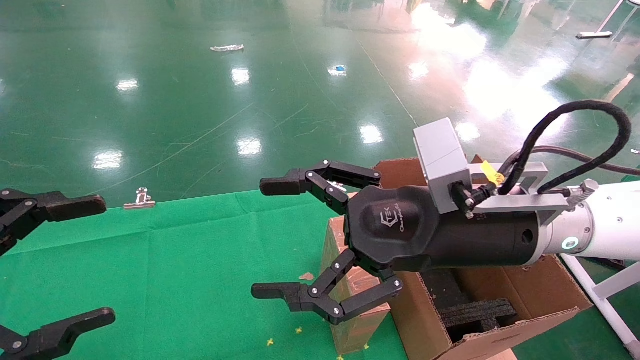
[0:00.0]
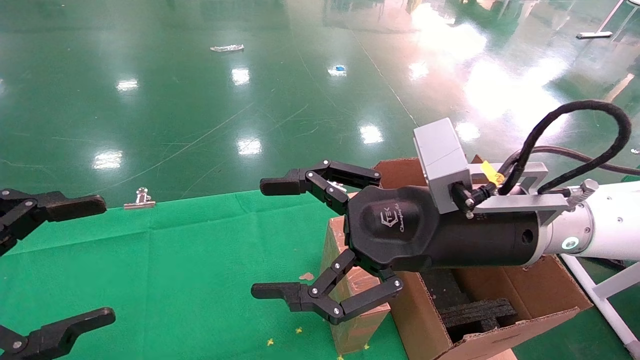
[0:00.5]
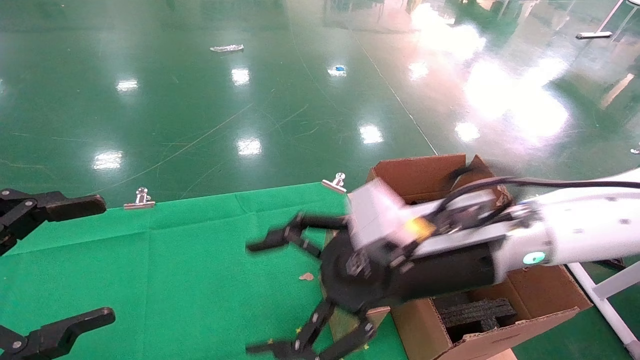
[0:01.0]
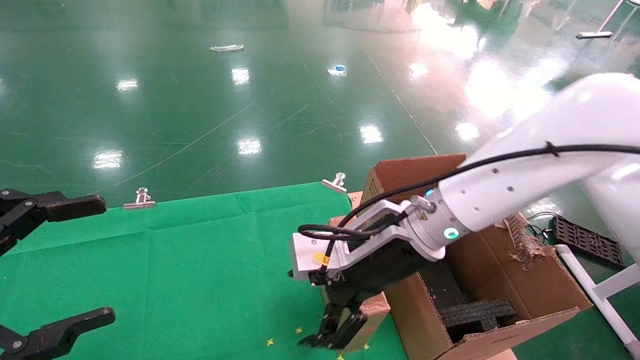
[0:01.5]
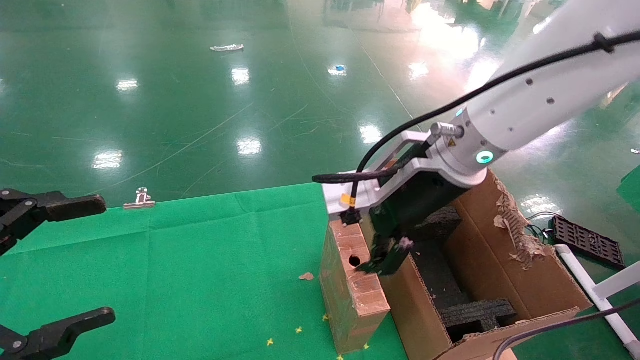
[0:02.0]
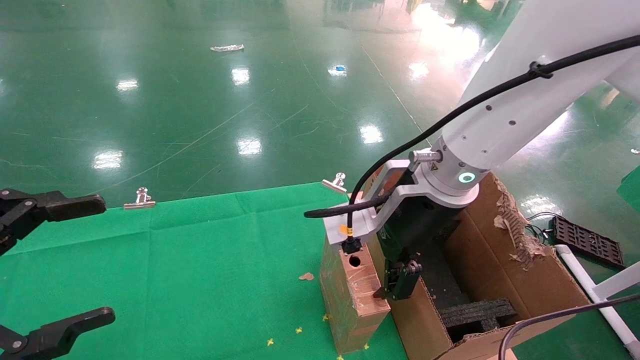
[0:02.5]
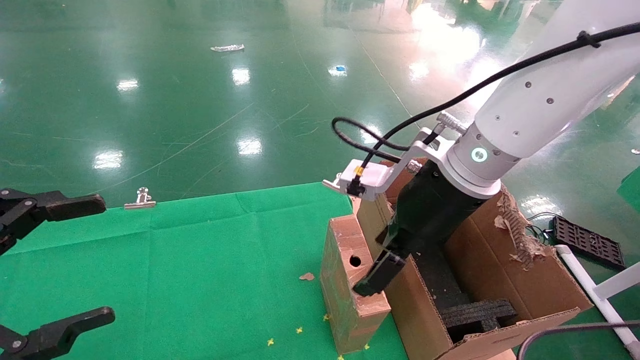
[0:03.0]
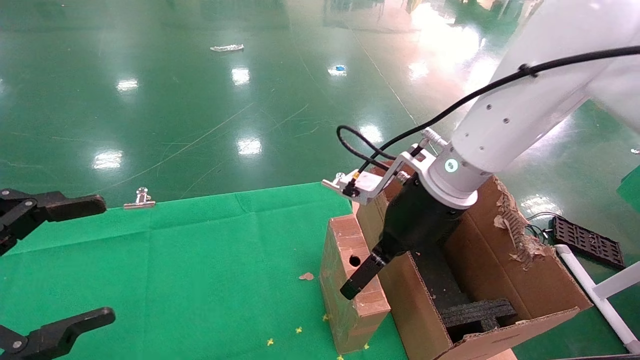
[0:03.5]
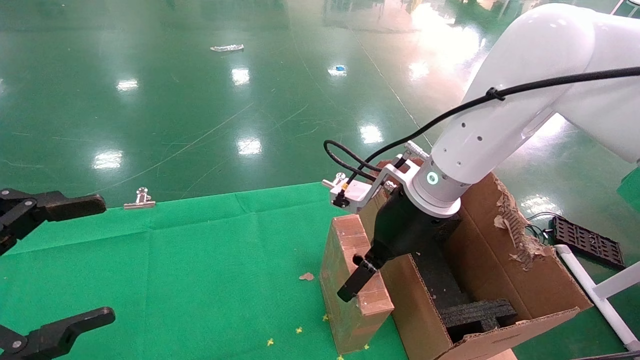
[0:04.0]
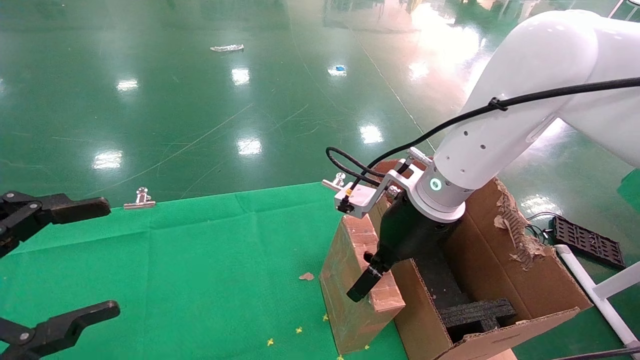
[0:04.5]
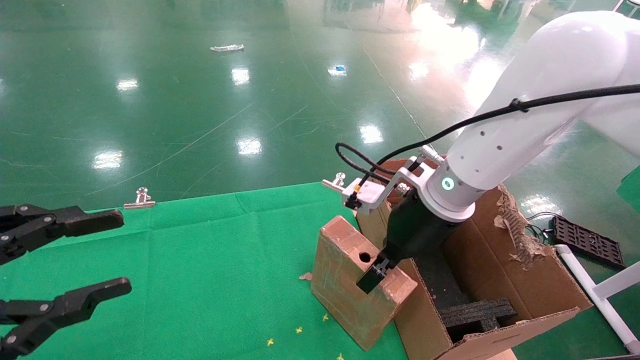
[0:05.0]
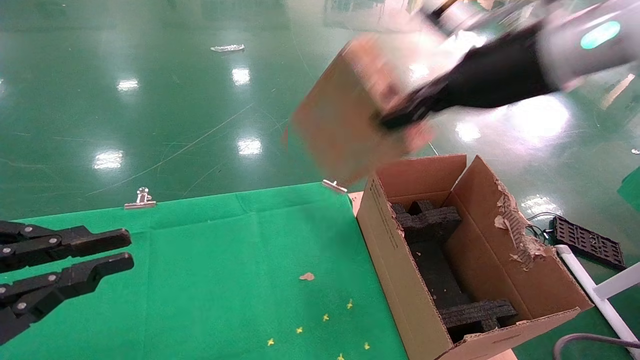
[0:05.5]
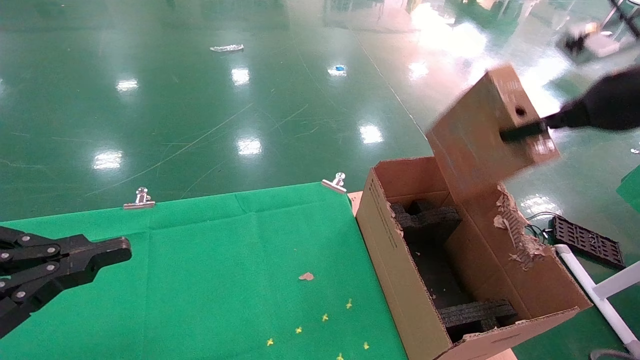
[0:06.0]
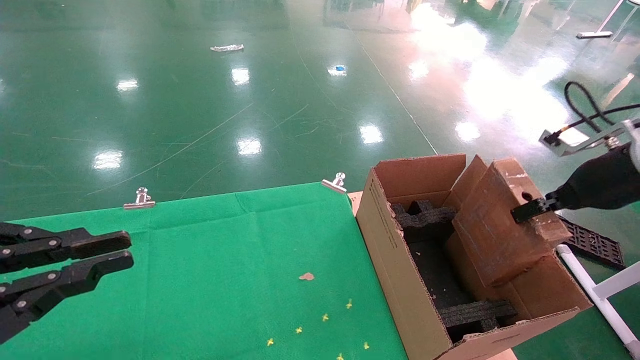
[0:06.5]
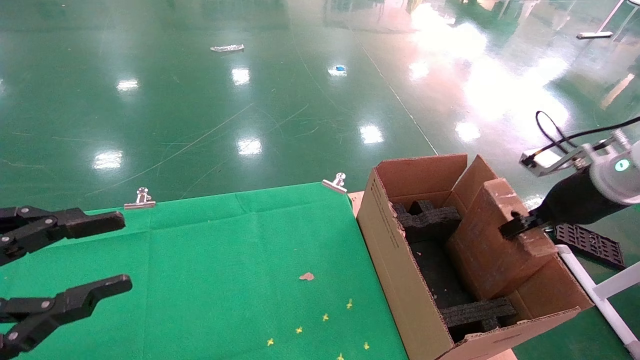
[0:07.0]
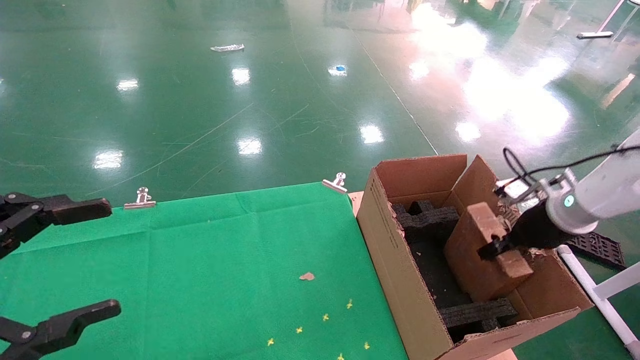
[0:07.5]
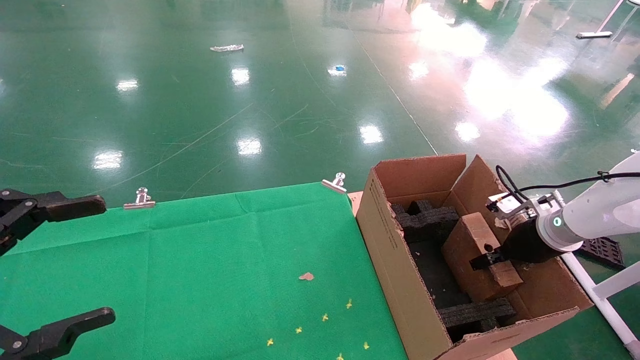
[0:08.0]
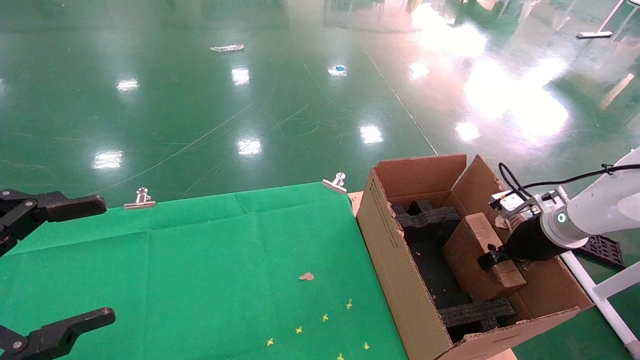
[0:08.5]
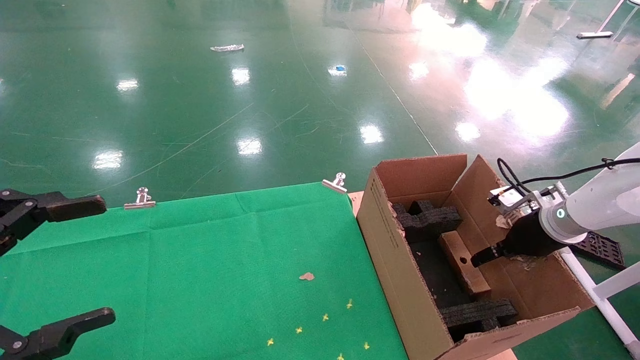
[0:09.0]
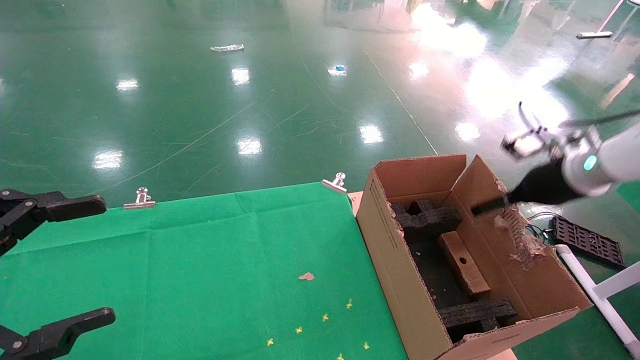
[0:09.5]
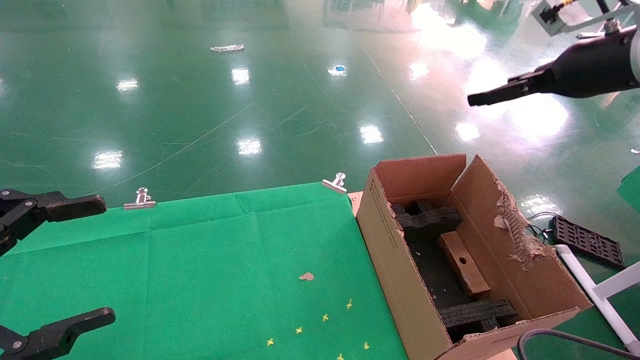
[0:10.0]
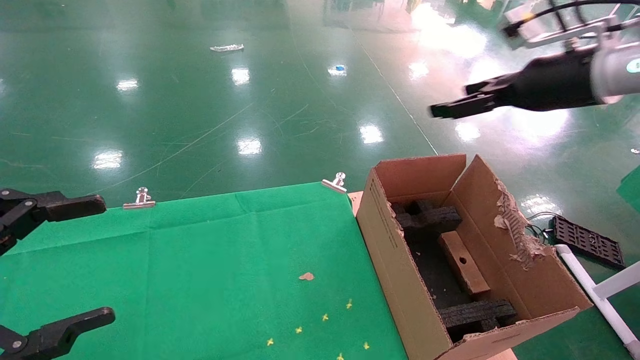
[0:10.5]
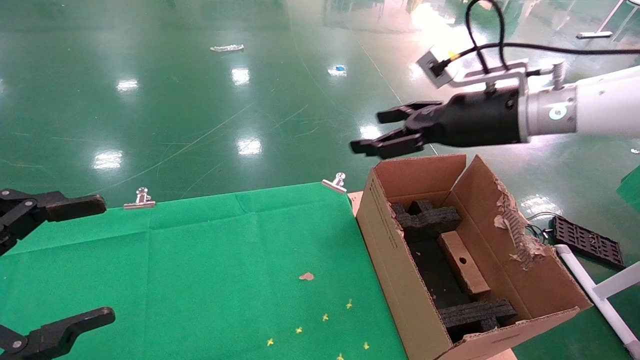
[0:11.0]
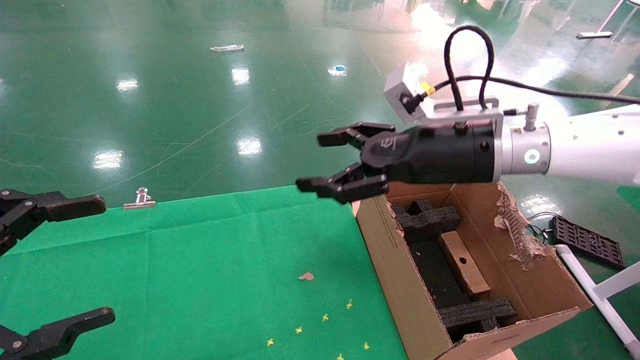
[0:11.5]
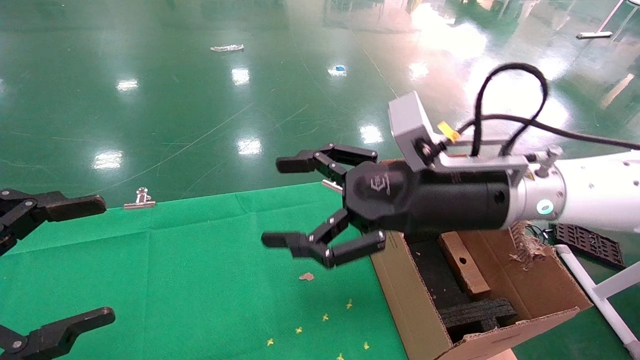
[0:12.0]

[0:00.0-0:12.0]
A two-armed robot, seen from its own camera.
Task of the whole recording: using a robotic arm to pick up a cardboard box and palace it the carton.
Step, 0:01.5 to 0:05.0: Pick up the mouse and the power cord paper box.
Step, 0:05.5 to 0:09.0: Place the mouse and the power cord paper box into the container.
0:00.0 to 0:02.0: The right gripper goes roughly 5 cm forward.
0:02.0 to 0:04.0: The right gripper moves about 5 cm.
0:04.0 to 0:06.0: The right gripper moves to the right and upward, some 25 cm, and closes up; the left gripper closes its fingers.
0:06.0 to 0:08.0: The left gripper opens its fingers; the right gripper goes roughly 25 cm downward.
0:08.0 to 0:10.0: The right gripper goes approximately 25 cm upward, and opens its fingers.
0:10.0 to 0:12.0: The right gripper shifts roughly 25 cm to the left and downward.

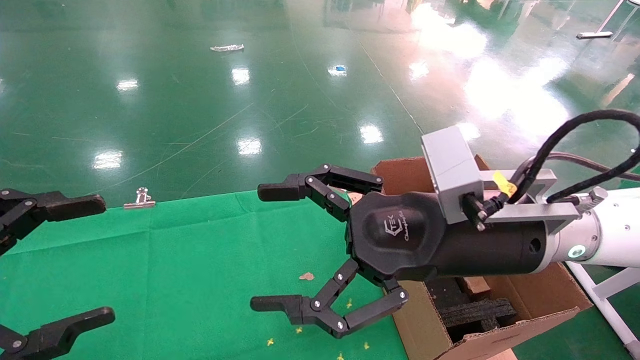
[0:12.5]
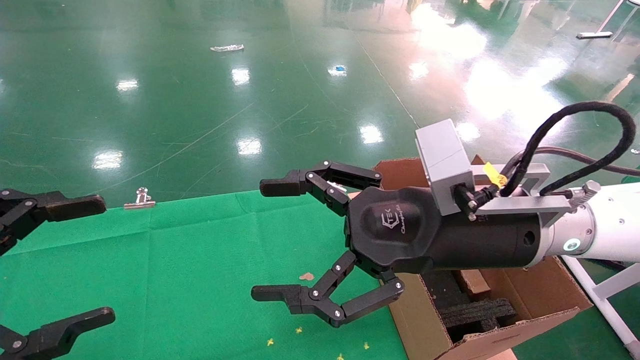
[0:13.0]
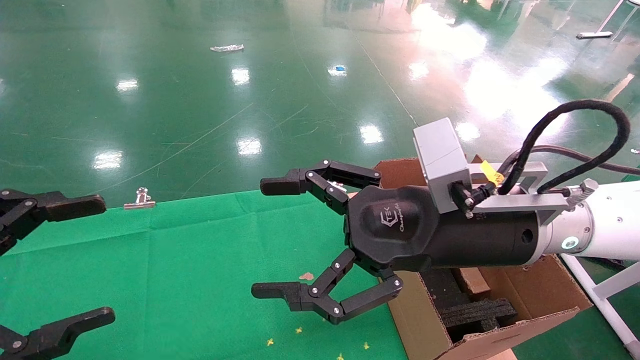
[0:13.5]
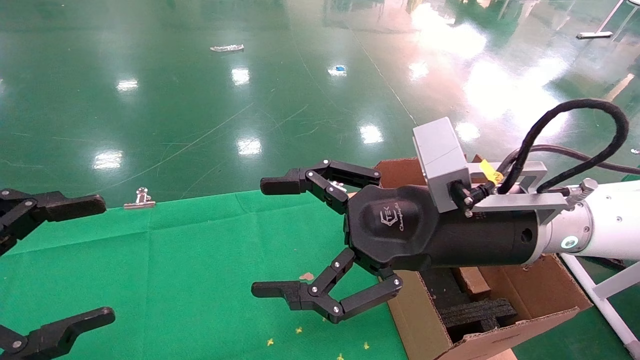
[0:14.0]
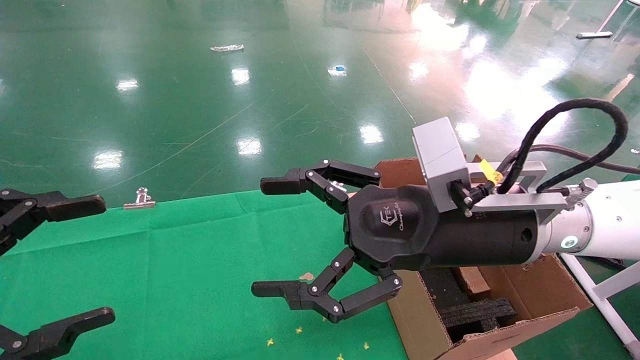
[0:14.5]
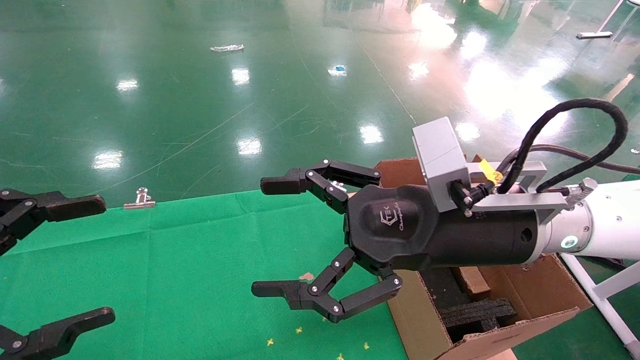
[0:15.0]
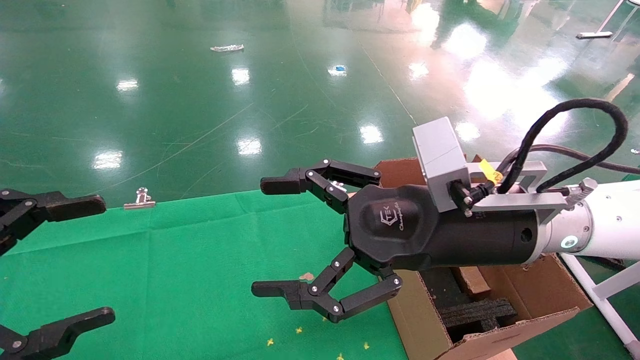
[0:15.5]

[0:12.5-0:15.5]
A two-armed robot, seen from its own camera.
Task of the whole recording: using a robotic arm to pick up a cardboard box and palace it the carton.
0:12.5 to 0:15.5: The two grippers keep their place.
